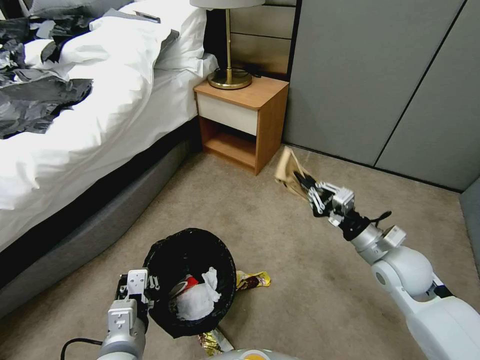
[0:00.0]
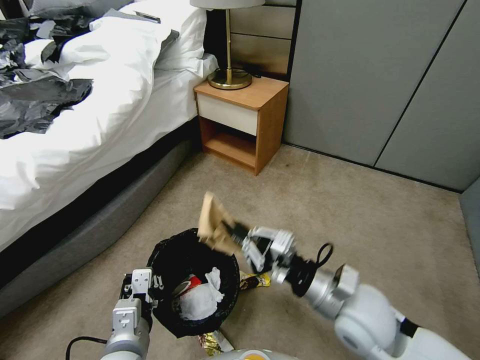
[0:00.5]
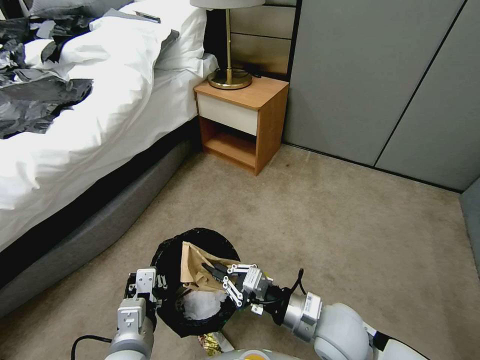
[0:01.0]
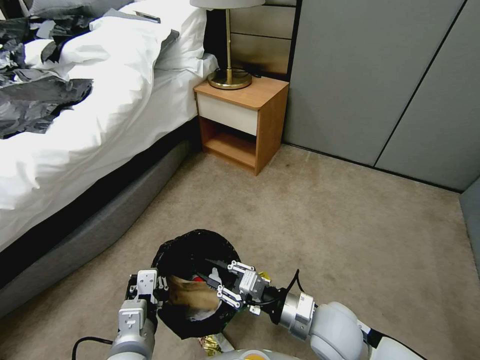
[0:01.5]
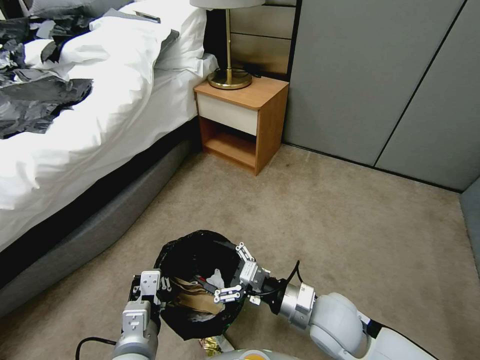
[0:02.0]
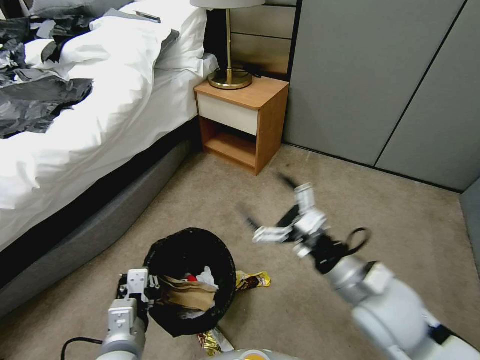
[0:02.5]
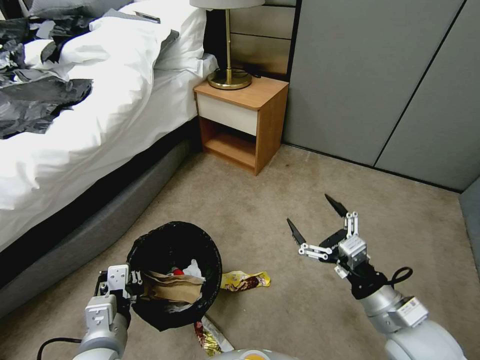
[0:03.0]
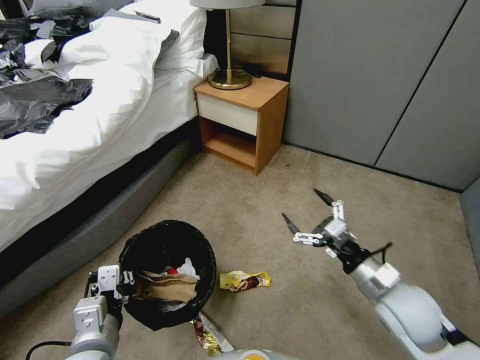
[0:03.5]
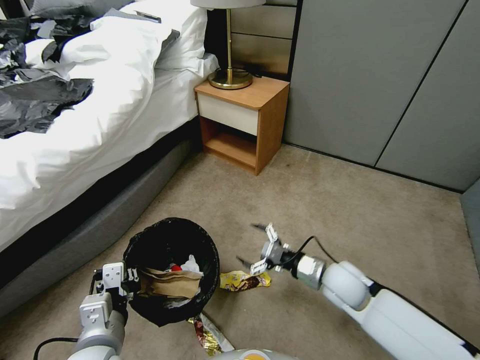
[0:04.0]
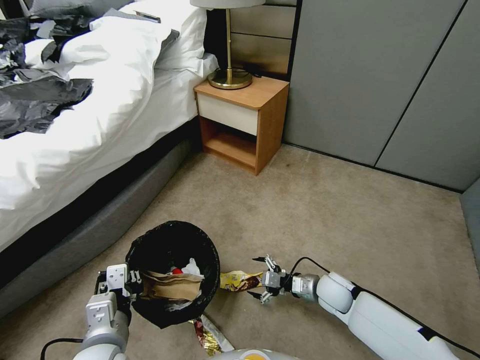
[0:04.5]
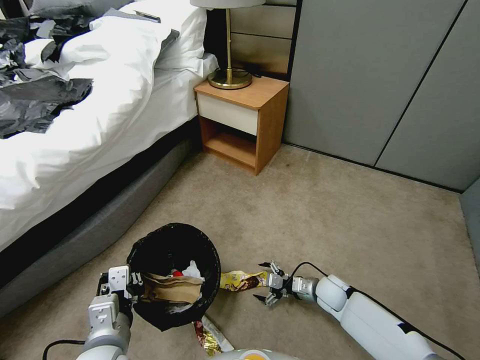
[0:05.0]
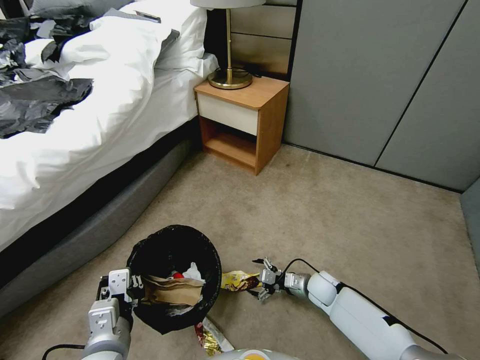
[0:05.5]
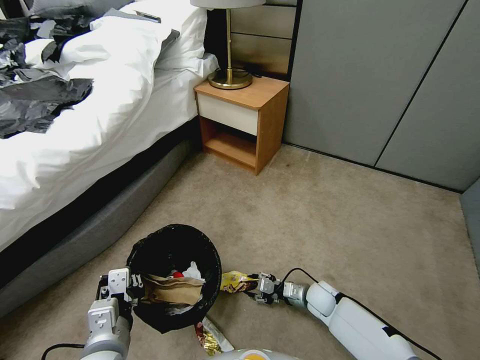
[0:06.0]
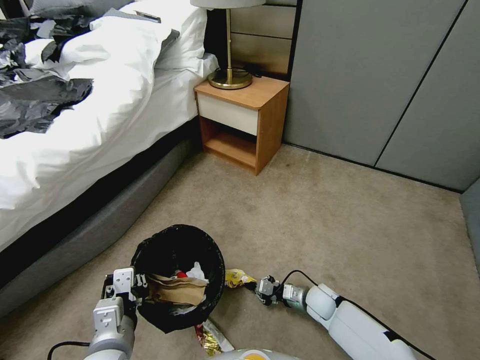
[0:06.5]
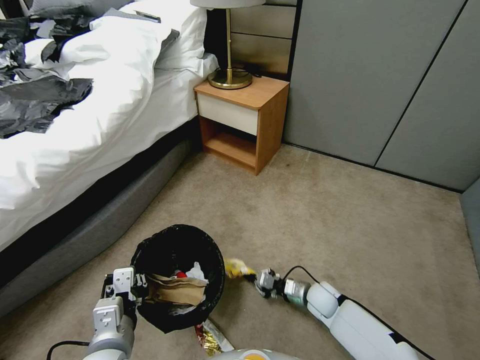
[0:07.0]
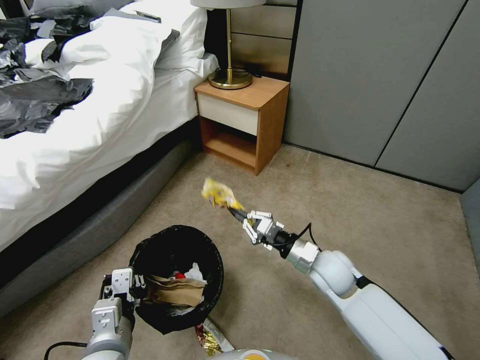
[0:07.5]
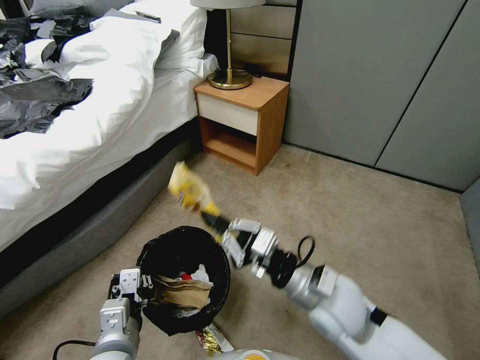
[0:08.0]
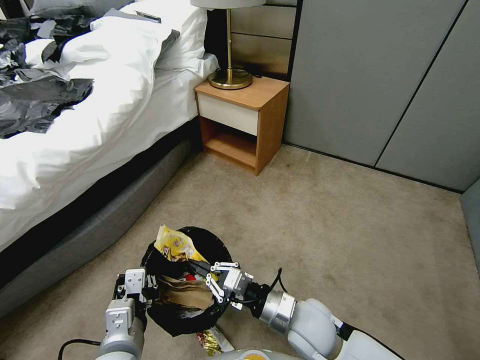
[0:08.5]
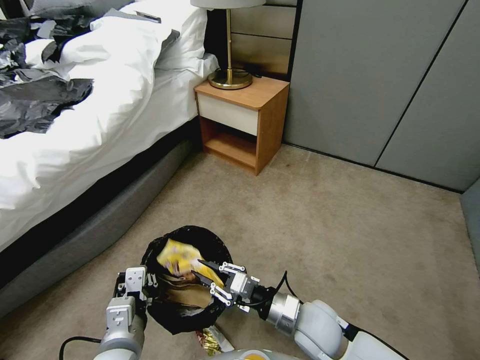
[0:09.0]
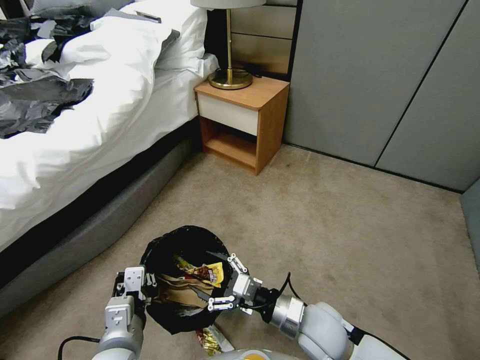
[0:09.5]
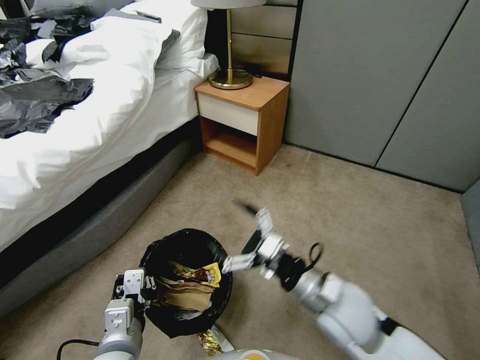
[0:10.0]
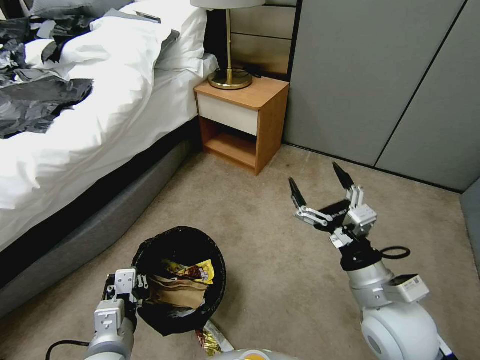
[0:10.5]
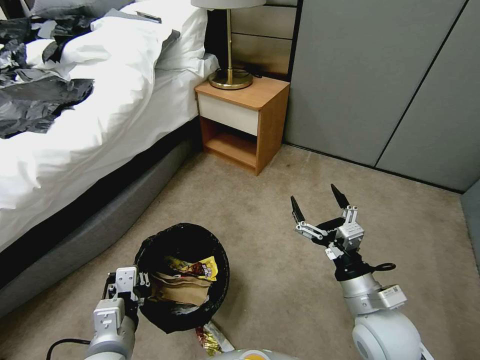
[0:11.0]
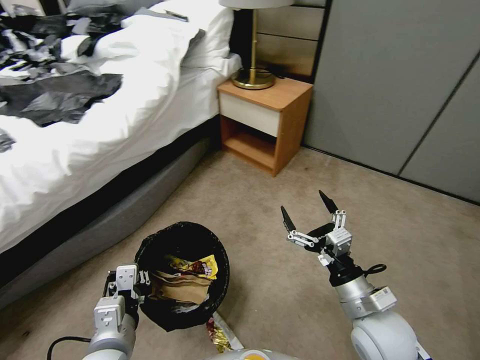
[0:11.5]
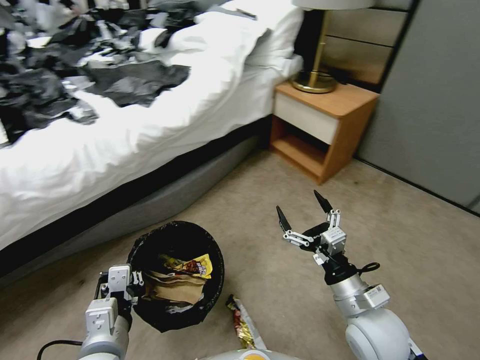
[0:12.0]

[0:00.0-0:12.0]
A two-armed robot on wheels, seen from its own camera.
Task of the whole recording: Pick up the trash bin, then pick up the garbage from the floor and place it into the trash bin.
0:00.0 to 0:02.0: The right gripper moves to the left and backward, about 15 cm, and opens its fingers.
0:02.0 to 0:04.0: The left gripper heads to the left, covering roughly 5 cm; the right gripper moves forward and to the right, roughly 10 cm, and travels upward and back again, about 10 cm each way.
0:04.0 to 0:06.0: The right gripper travels downward by roughly 20 cm, and closes up.
0:06.0 to 0:08.0: The right gripper goes about 30 cm upward, and closes up.
0:08.0 to 0:10.0: The right gripper travels downward and back again, some 10 cm each way, and opens up.
0:10.0 to 0:12.0: The right gripper goes roughly 5 cm to the right.

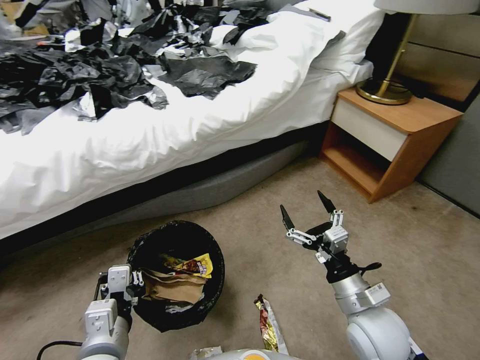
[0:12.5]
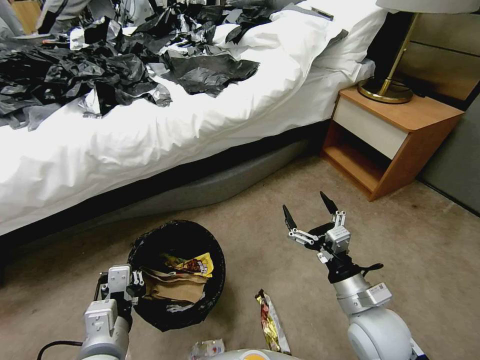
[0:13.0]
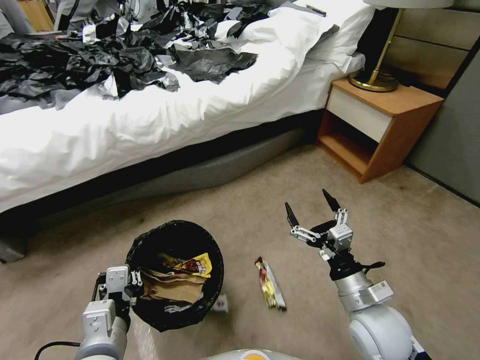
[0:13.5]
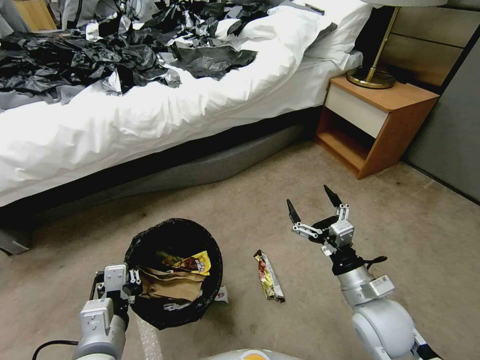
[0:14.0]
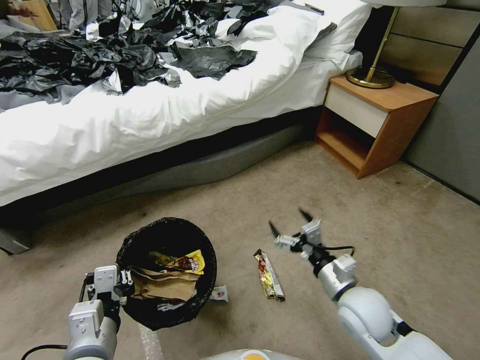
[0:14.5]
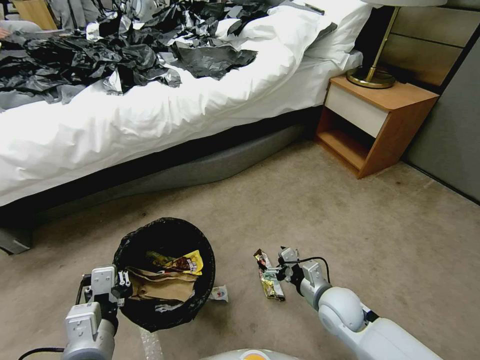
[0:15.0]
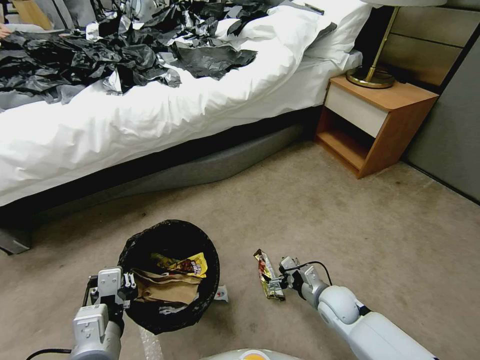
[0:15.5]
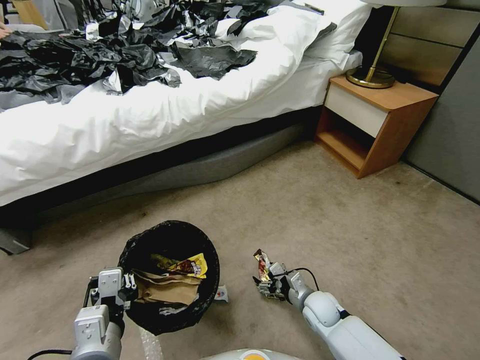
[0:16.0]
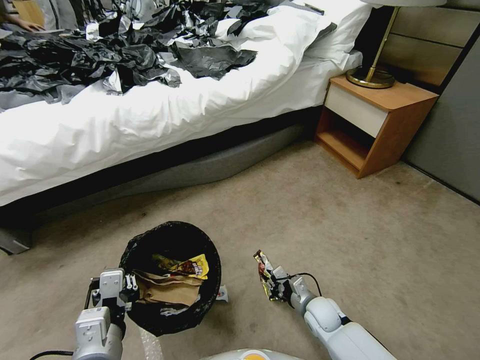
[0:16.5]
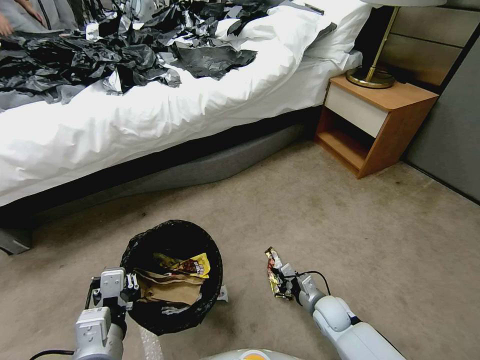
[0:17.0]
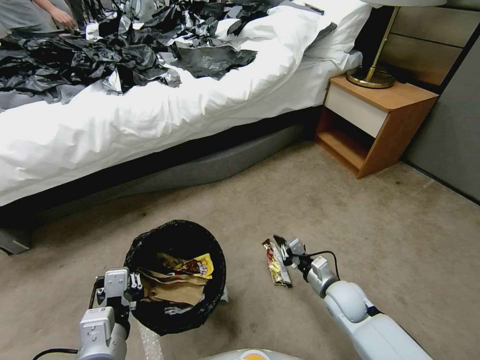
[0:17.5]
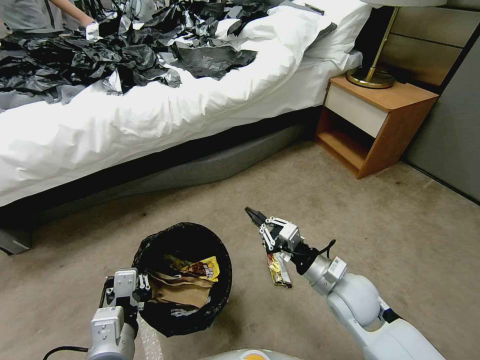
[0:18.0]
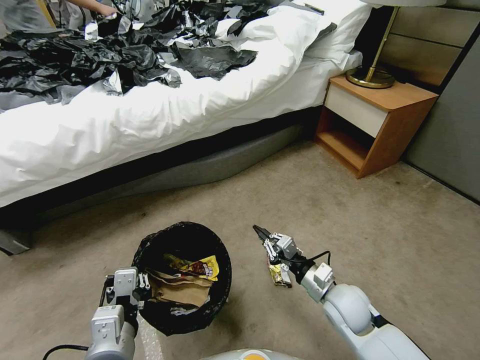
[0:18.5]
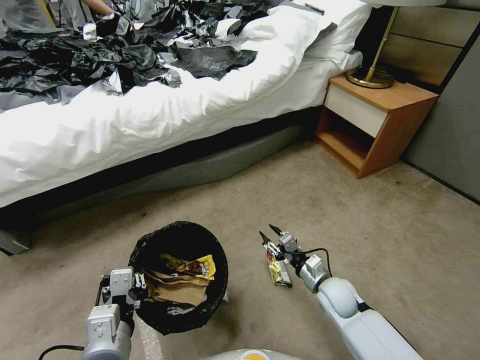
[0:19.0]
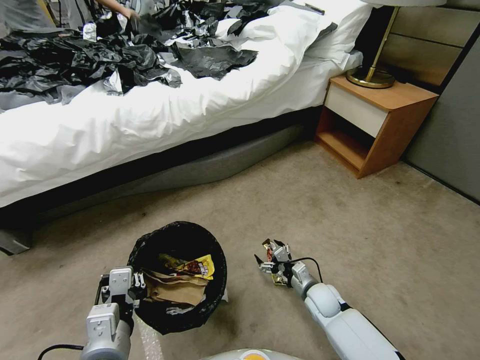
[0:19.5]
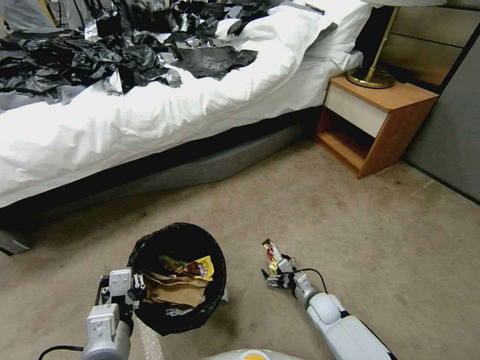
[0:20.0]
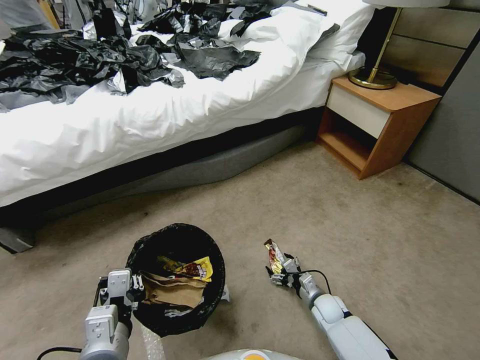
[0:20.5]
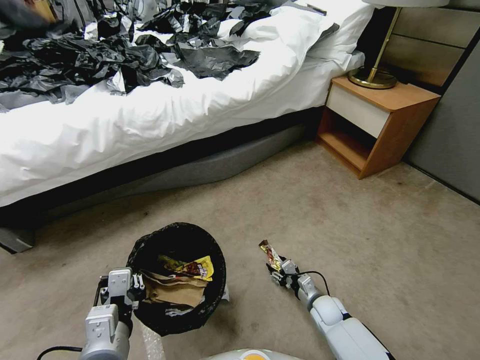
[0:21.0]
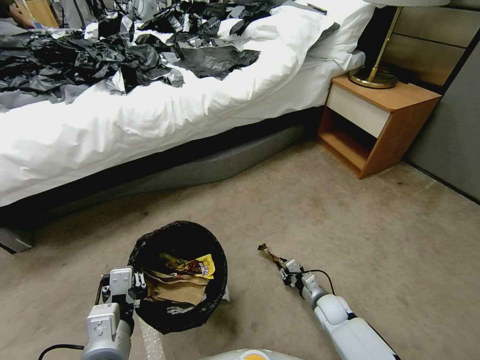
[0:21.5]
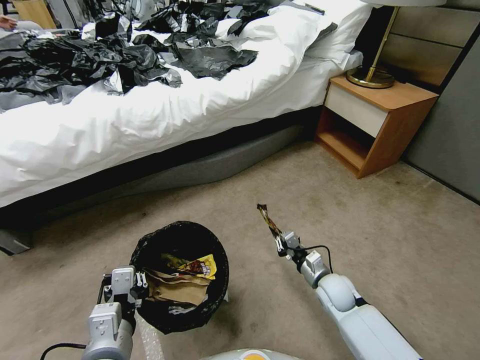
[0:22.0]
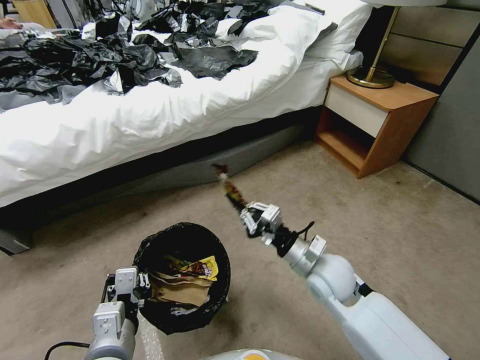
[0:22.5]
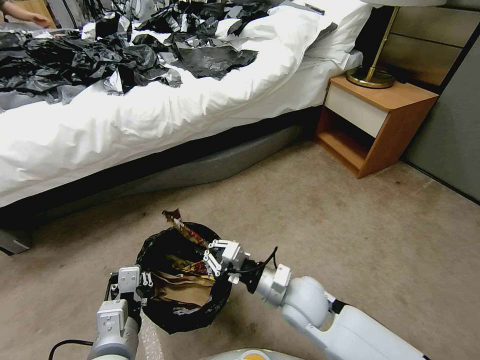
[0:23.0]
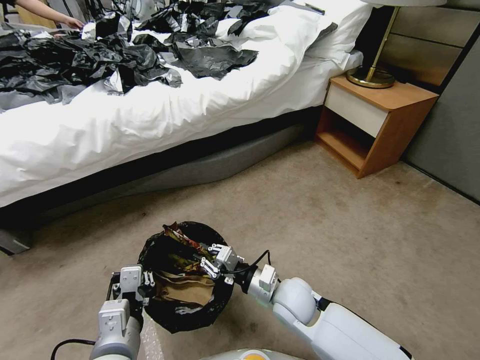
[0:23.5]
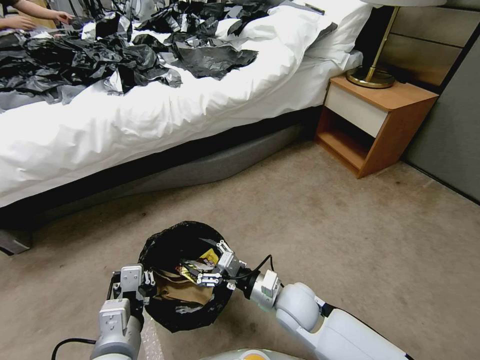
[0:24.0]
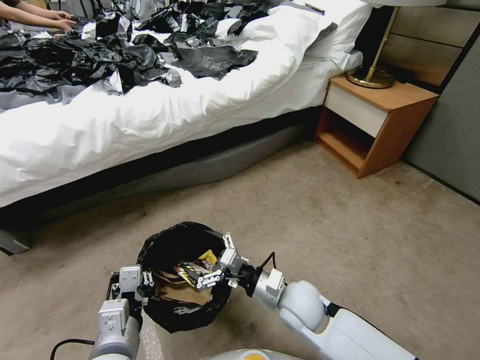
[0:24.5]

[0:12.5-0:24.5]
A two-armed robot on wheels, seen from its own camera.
Task of the whole recording: Pick up the trash bin, then pick up the garbage from the floor and place it into the trash bin.
0:14.5 to 0:16.5: The right gripper is displaced downward by about 20 cm, and closes up.
0:16.5 to 0:18.5: The right gripper moves upward, some 15 cm.
0:18.5 to 0:20.5: The right gripper moves downward, about 20 cm, and opens up.
0:20.5 to 0:22.5: The right gripper heads upward, covering some 25 cm, and closes up.
0:22.5 to 0:24.5: The right gripper travels to the left and backward by approximately 10 cm, and opens.

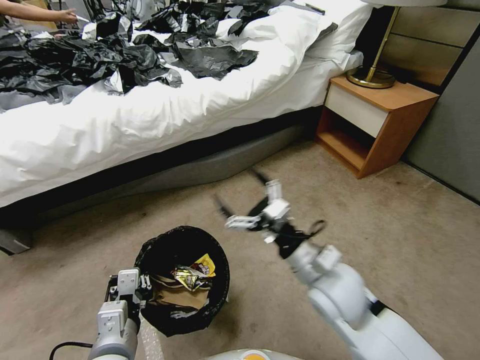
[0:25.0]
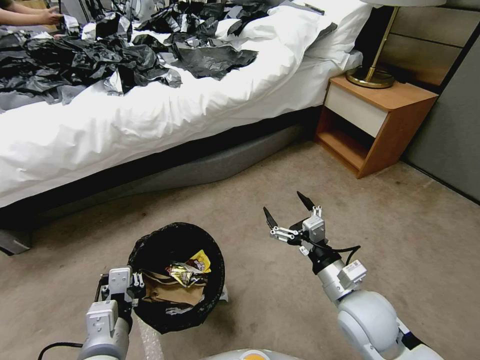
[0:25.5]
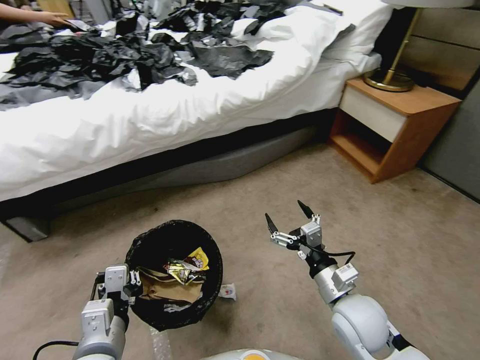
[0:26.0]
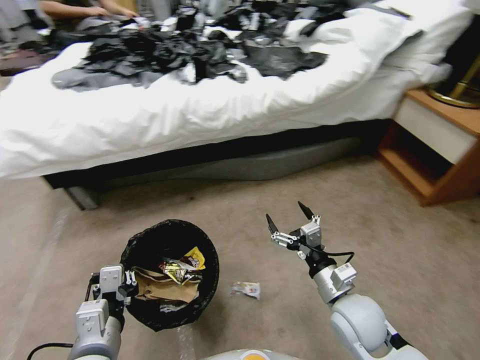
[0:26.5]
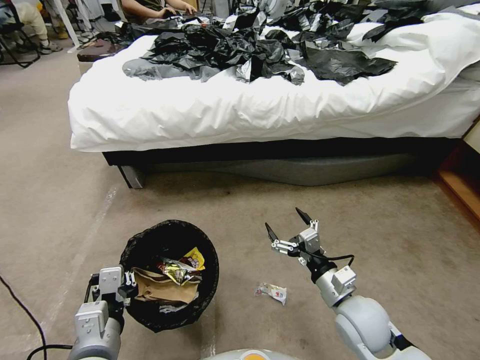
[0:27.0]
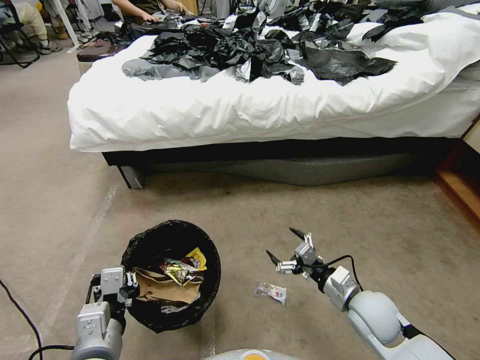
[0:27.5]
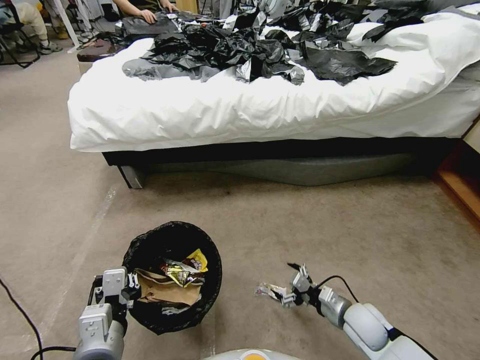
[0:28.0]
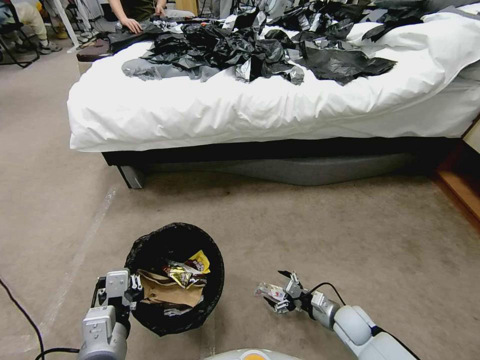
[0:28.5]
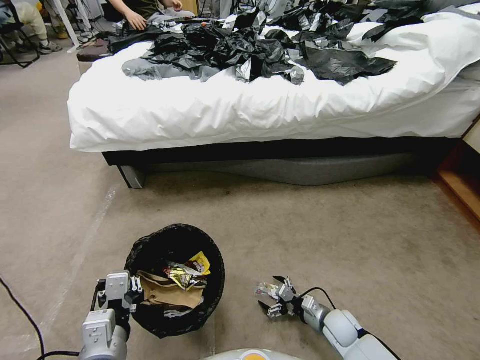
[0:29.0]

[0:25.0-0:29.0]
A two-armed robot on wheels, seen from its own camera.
Task of the whole recording: Pick up the trash bin, then pick up the garbage from the floor and place it into the trash bin.
0:25.0 to 0:27.0: The right gripper moves downward and to the right, some 10 cm.
0:27.0 to 0:29.0: The right gripper is displaced downward by approximately 20 cm.
